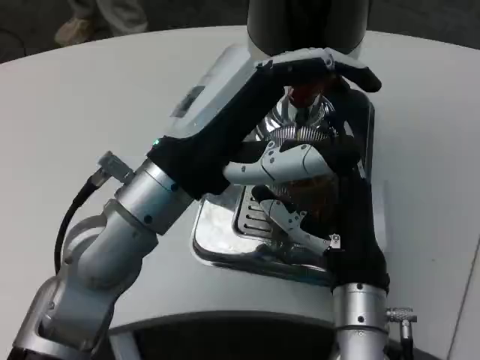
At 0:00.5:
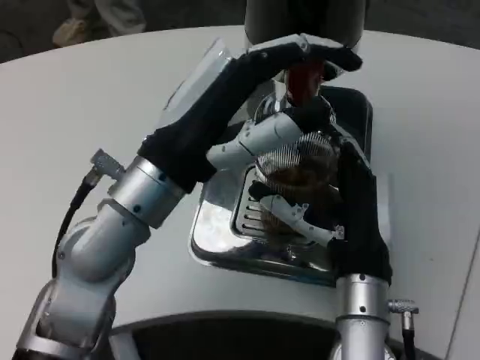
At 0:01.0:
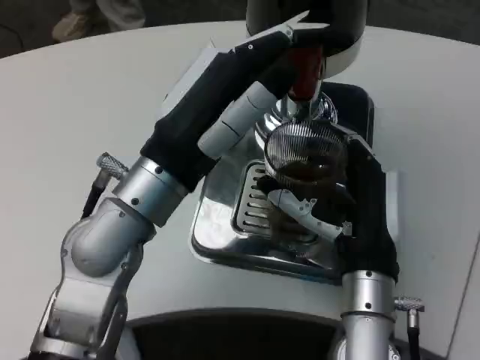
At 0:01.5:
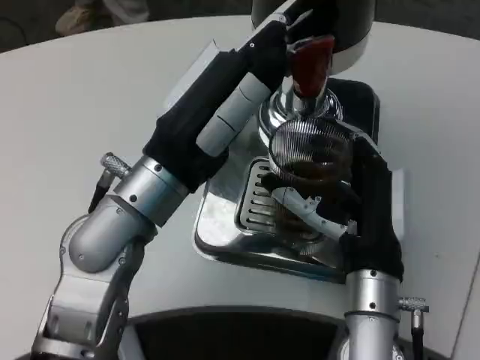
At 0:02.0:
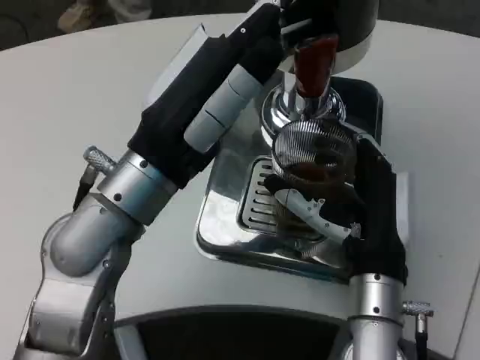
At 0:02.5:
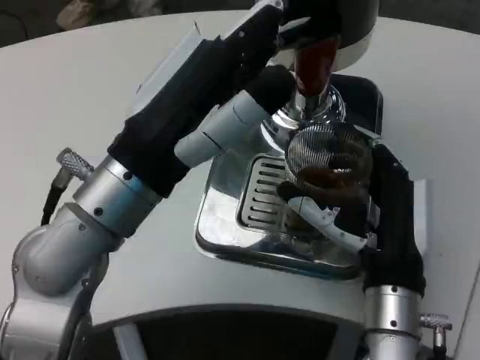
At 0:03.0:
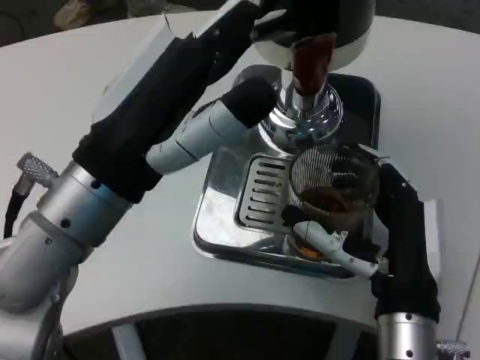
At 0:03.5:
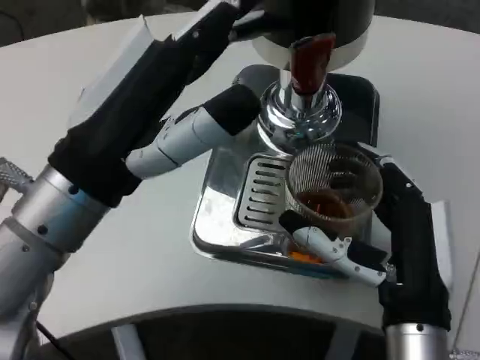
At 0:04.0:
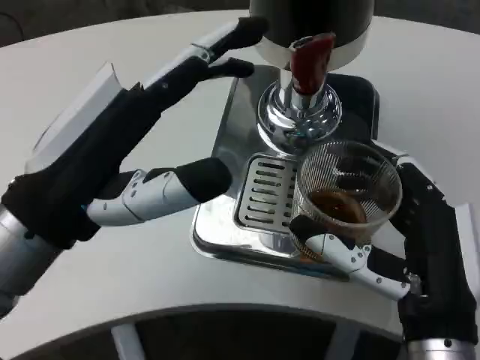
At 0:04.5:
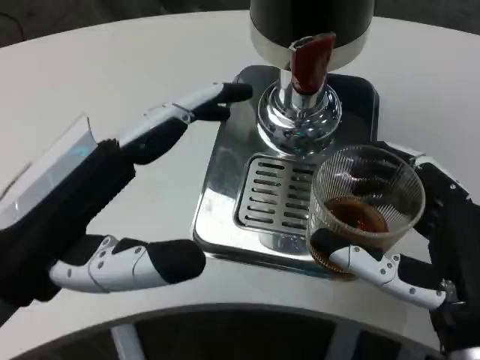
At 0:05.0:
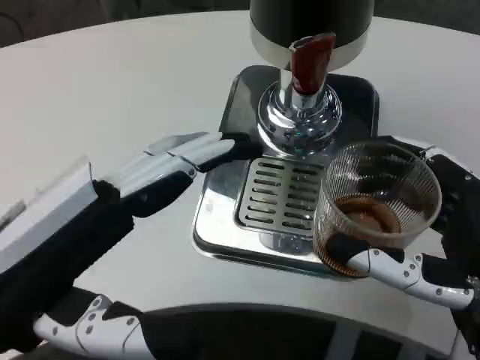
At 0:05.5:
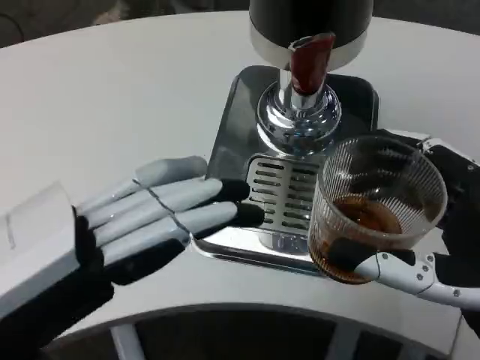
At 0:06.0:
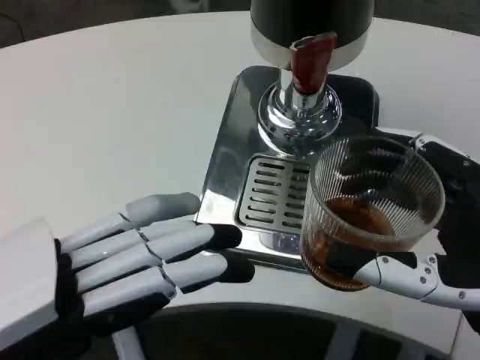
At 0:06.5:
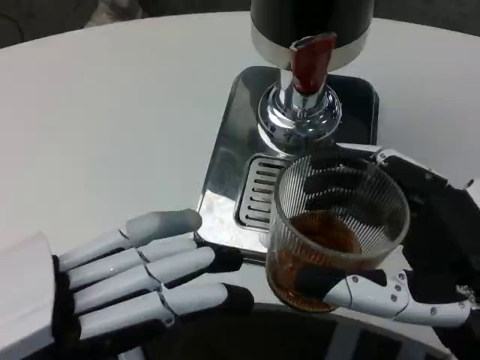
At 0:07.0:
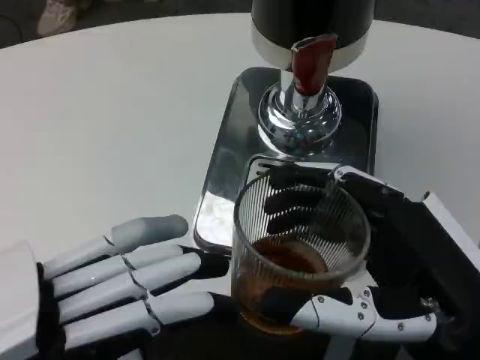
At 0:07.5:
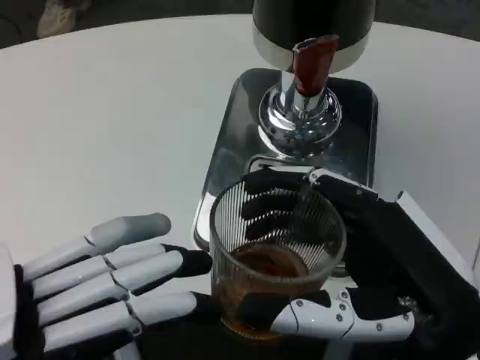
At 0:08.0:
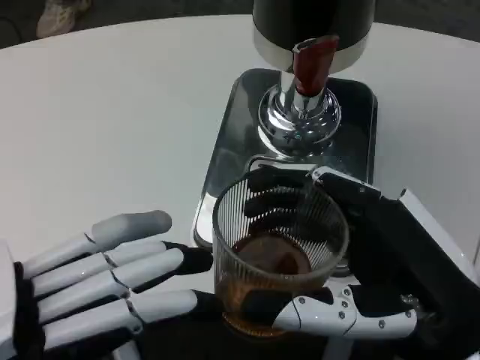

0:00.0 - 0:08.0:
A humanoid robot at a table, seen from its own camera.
Task of the whole recording: Grasp the cup under the faucet to collect the drink, then remove the cup.
0:02.0 - 0:04.0: The left hand is displaced backward and to the left by about 10 cm. Meanwhile the right hand travels backward by about 10 cm.
0:04.0 - 0:06.0: The left hand moves backward and to the left, roughly 10 cm, while the right hand shifts some 10 cm to the right and upward.

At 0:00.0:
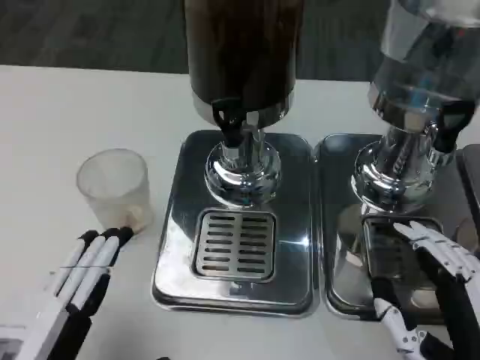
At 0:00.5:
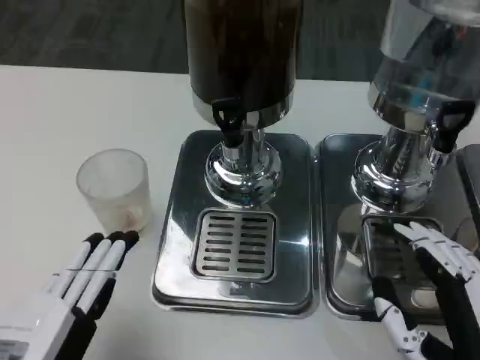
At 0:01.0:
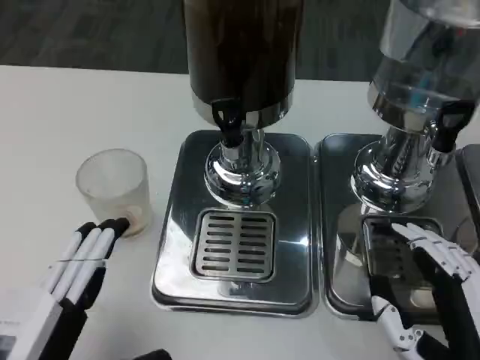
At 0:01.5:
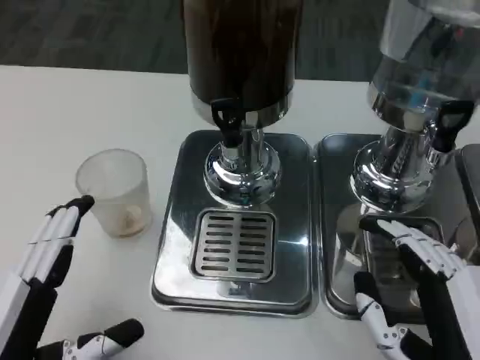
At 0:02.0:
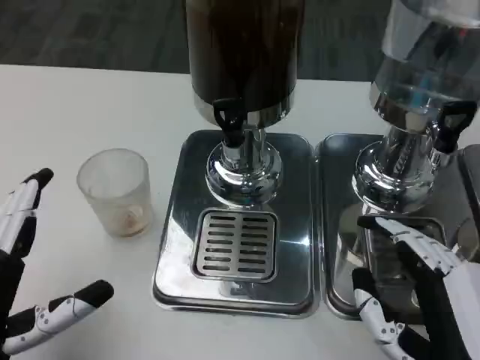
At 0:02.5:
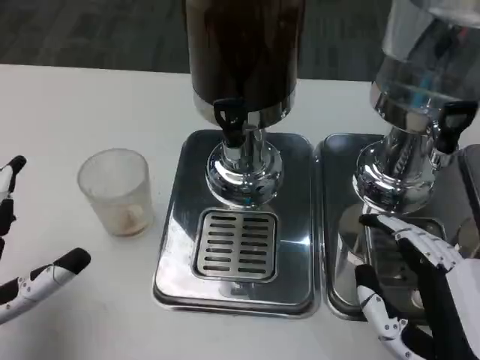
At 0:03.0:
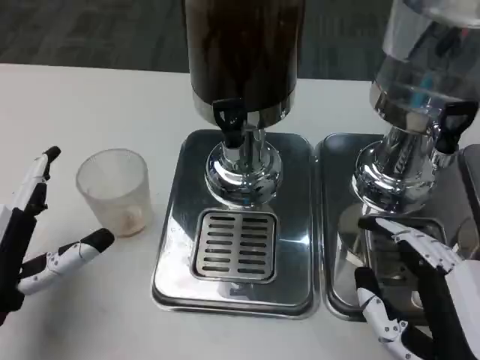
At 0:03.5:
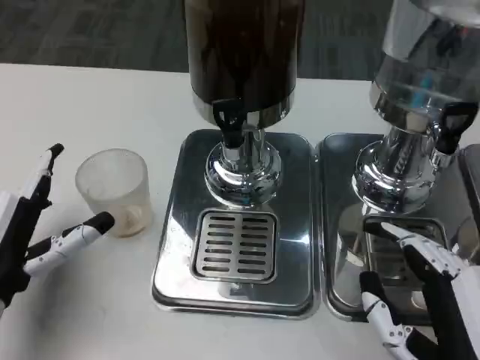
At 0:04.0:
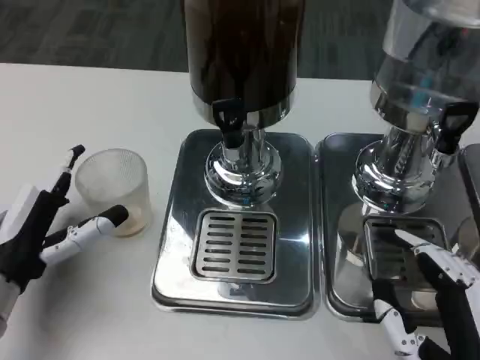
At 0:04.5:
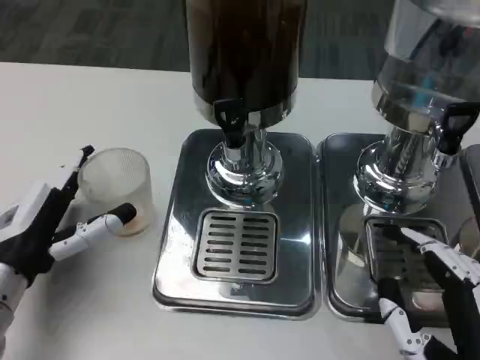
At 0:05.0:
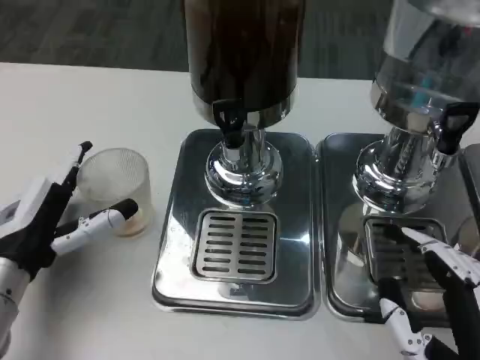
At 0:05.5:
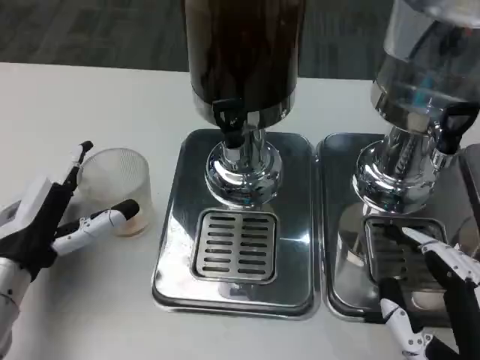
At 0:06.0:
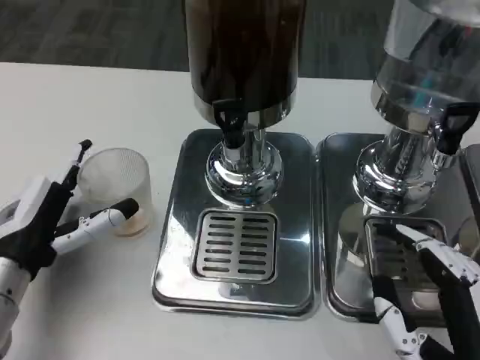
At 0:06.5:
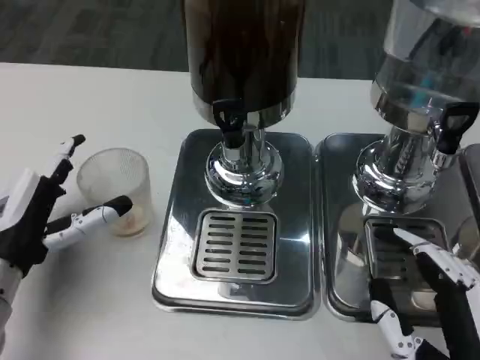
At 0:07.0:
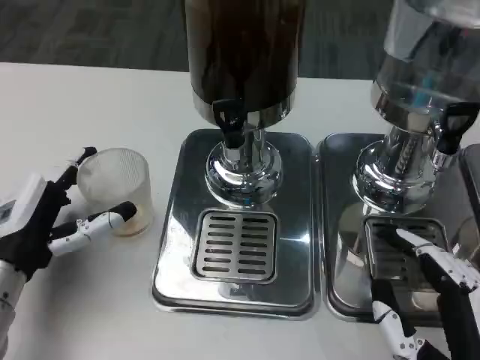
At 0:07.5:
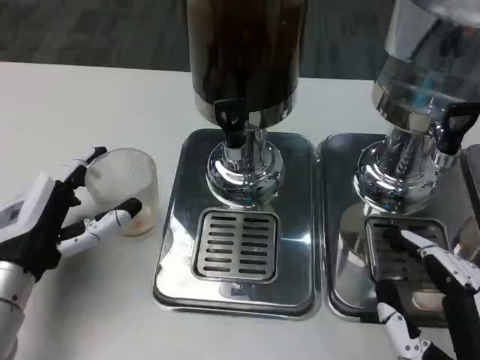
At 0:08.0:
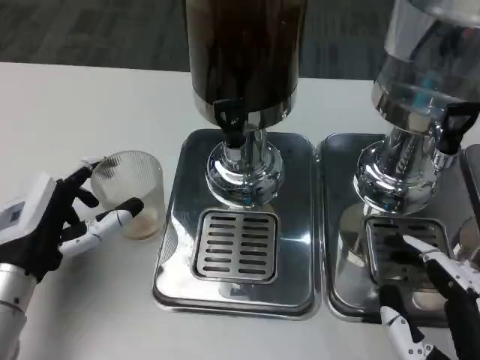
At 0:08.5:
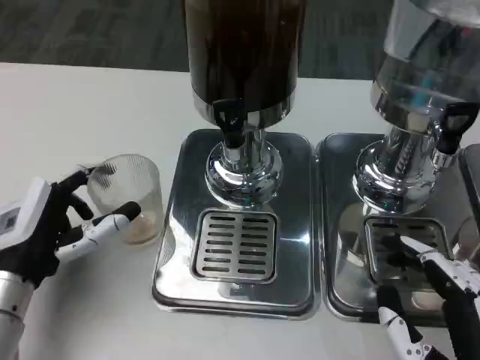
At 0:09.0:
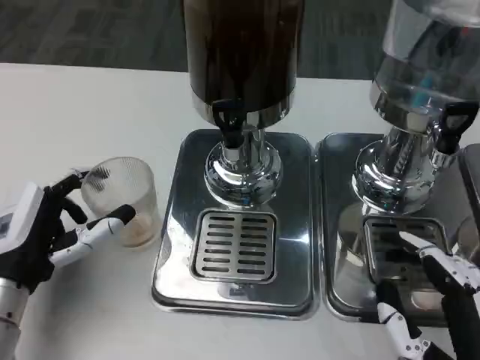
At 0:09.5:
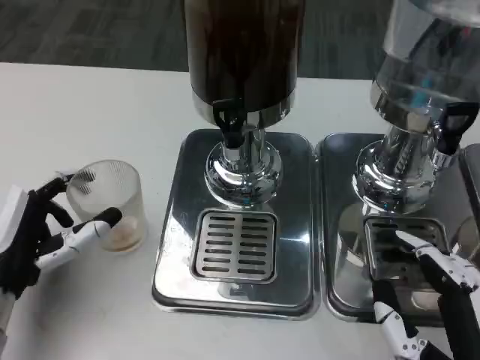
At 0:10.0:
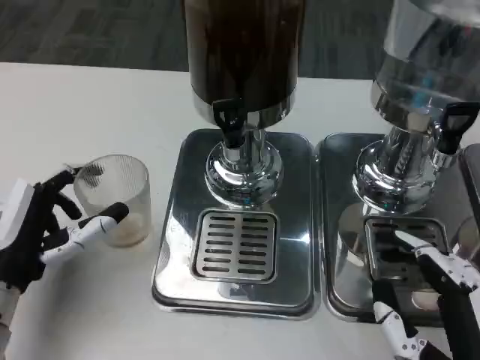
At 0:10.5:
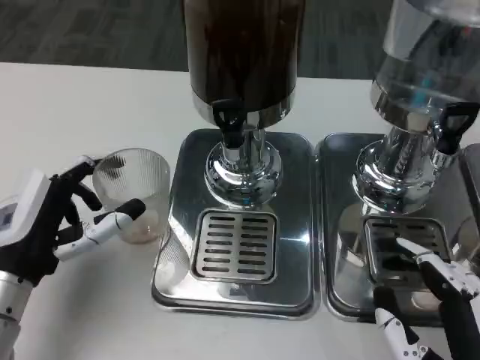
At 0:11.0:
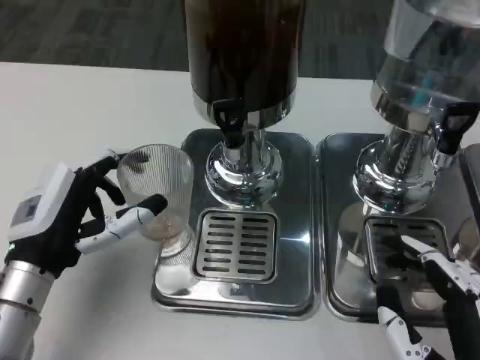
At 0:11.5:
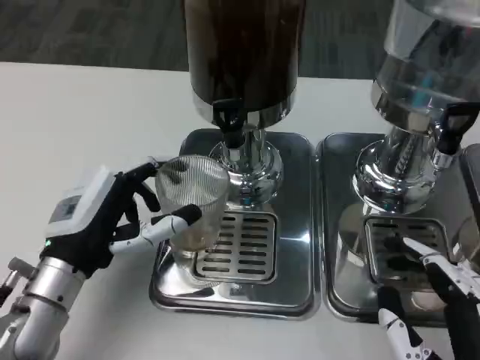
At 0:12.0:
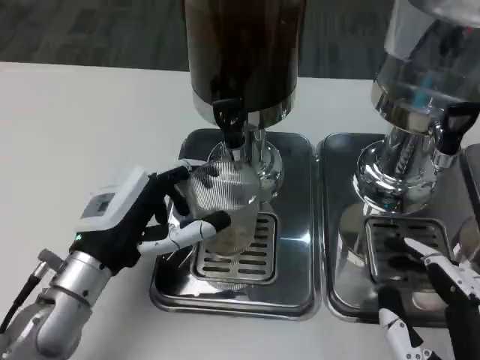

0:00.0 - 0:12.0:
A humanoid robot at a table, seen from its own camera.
Task of the whole recording: Grasp the cup under the faucet to collect the drink, then remove the cup.
0:00.0 - 0:02.0: The hands move only a little.
0:02.0 - 0:04.0: The left hand shifts some 10 cm forward.
0:04.0 - 0:10.0: The hands move only a little.
0:10.0 - 0:12.0: The left hand goes roughly 5 cm to the right.

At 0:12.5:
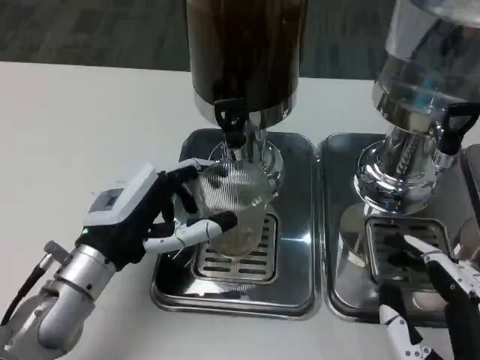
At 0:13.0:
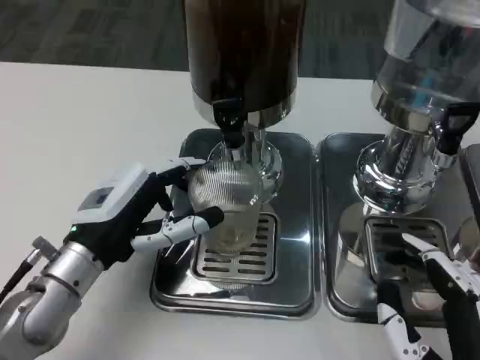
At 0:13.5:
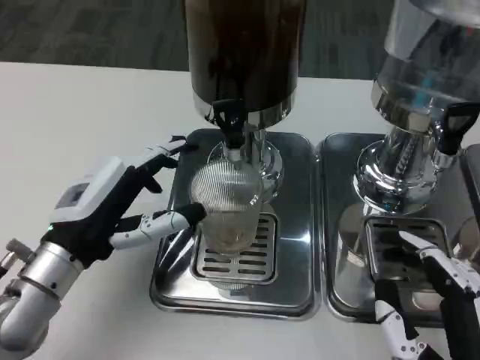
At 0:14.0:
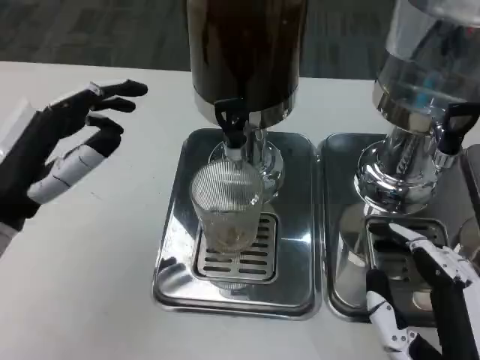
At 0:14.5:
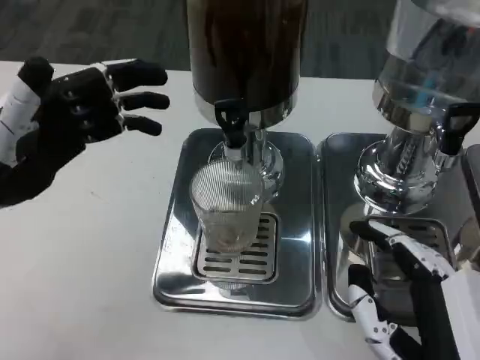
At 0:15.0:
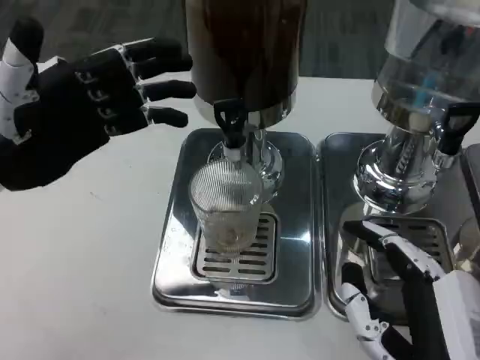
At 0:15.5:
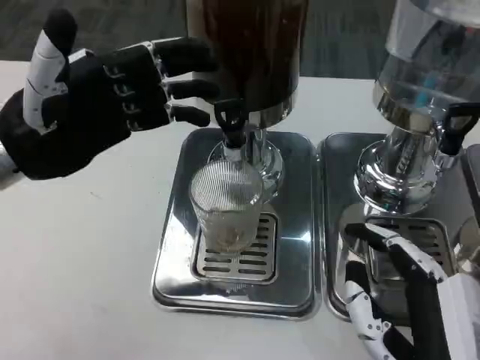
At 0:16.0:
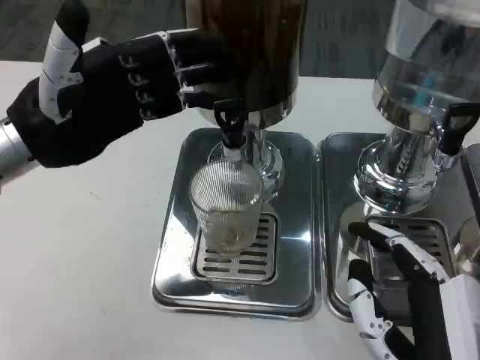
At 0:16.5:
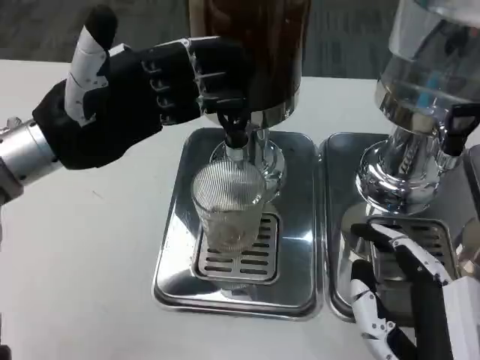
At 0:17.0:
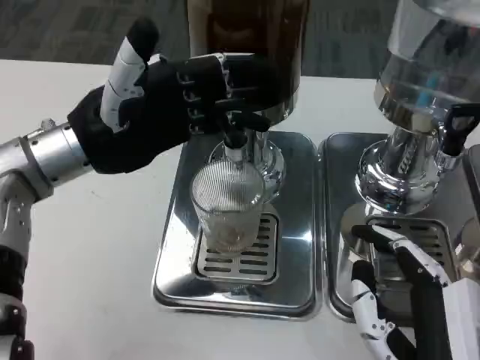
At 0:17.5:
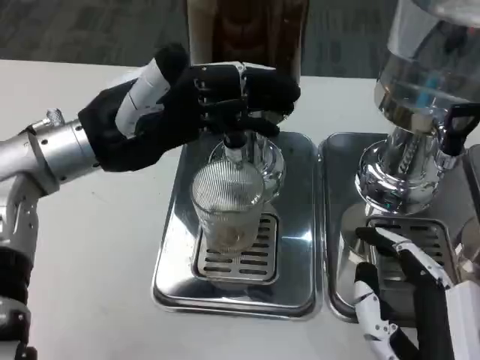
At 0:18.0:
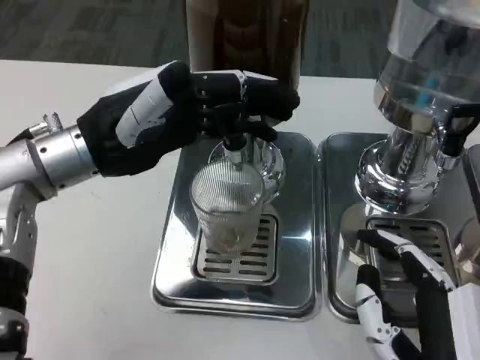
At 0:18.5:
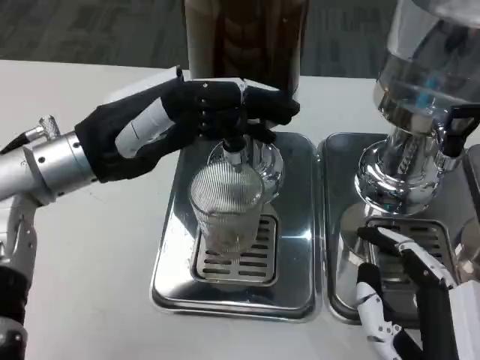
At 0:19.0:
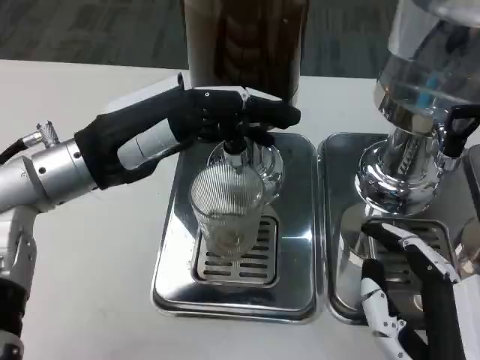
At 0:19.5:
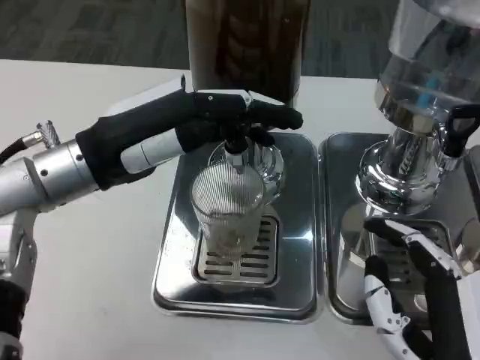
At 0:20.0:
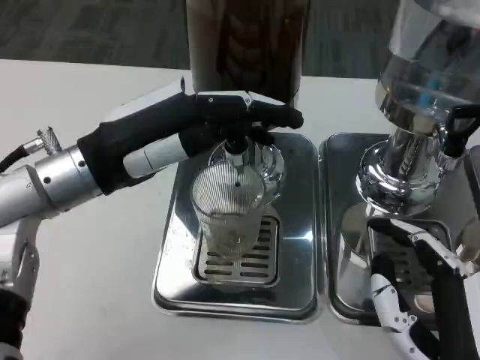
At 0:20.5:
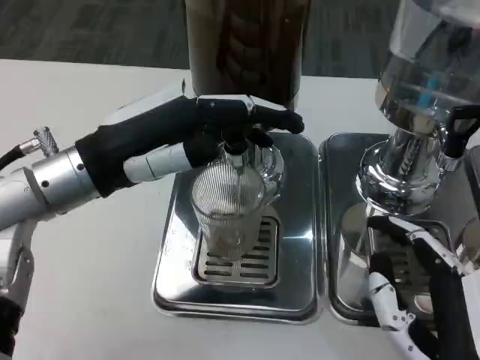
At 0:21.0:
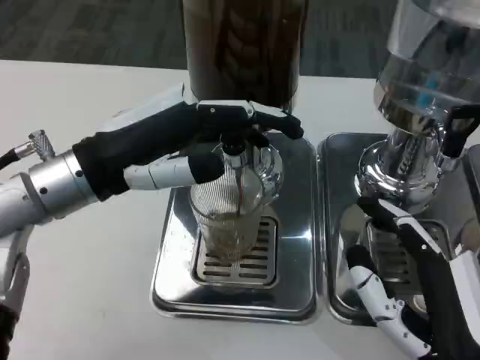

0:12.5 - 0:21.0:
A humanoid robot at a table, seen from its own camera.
Task of the whole recording: Grasp the cup under the faucet to collect the drink, then remove the cup.
0:12.5 - 0:14.5: The left hand travels upward and to the left by about 15 cm.
0:14.5 - 0:16.5: The left hand changes place by about 5 cm.
0:19.0 - 0:21.0: The hands move only a little.
